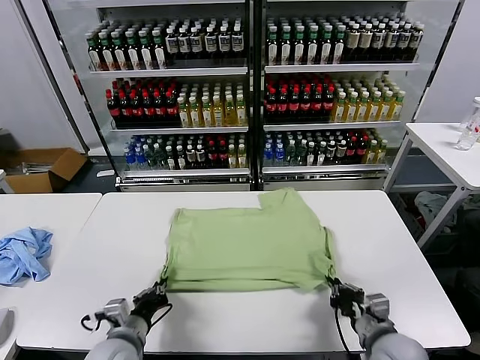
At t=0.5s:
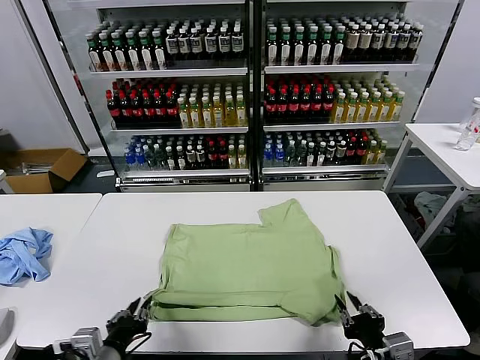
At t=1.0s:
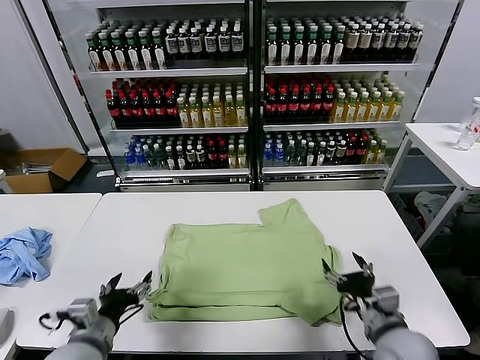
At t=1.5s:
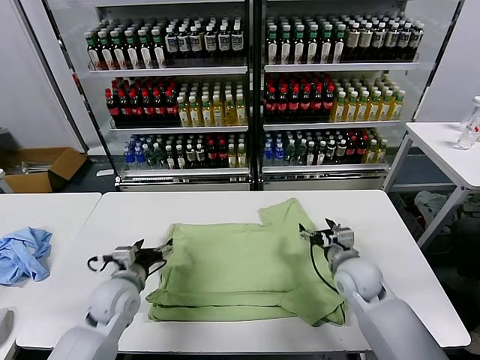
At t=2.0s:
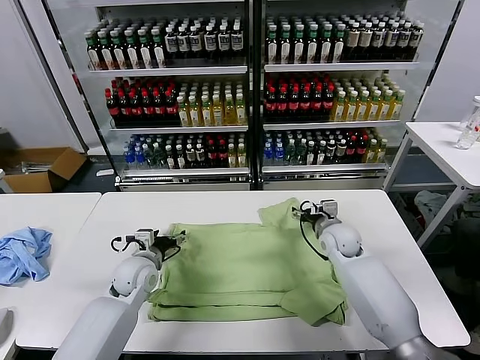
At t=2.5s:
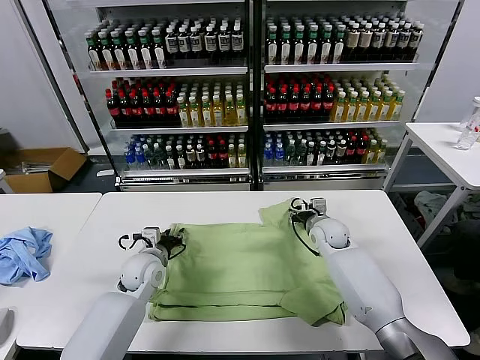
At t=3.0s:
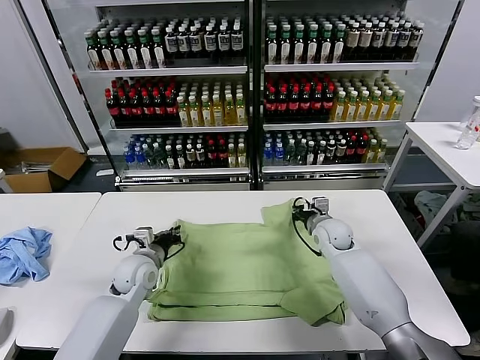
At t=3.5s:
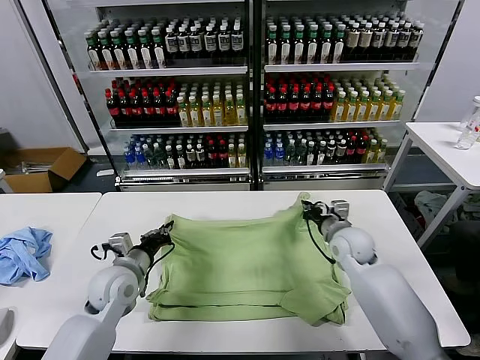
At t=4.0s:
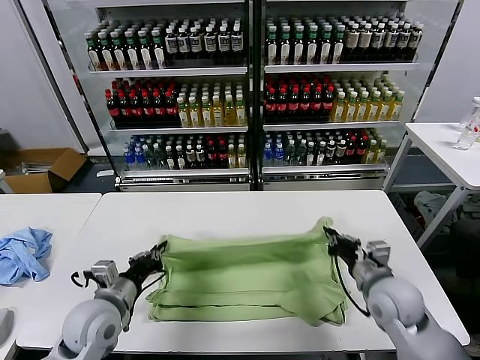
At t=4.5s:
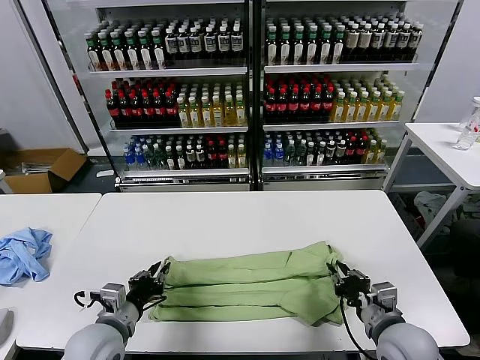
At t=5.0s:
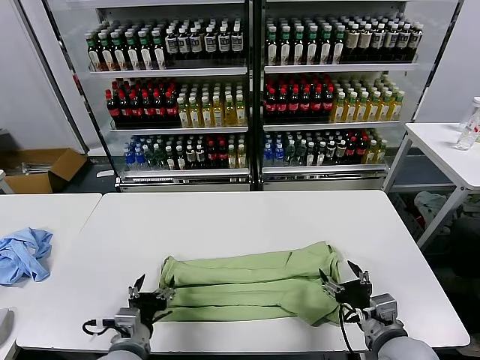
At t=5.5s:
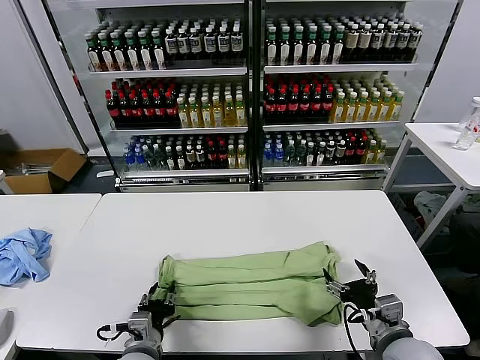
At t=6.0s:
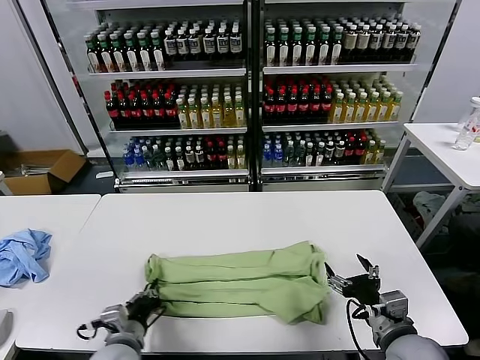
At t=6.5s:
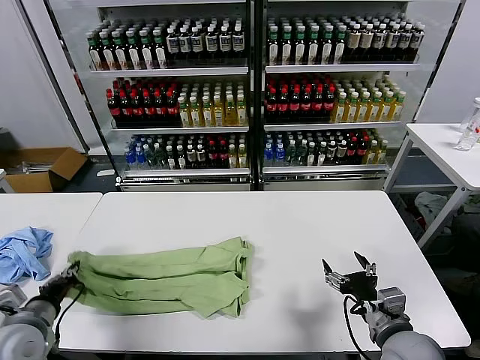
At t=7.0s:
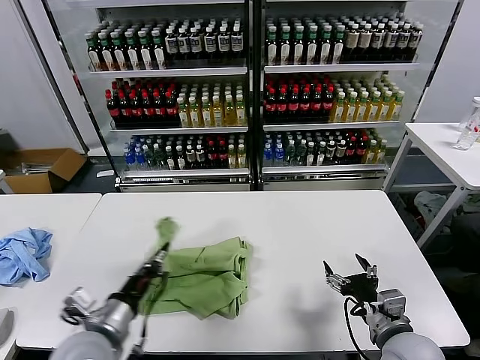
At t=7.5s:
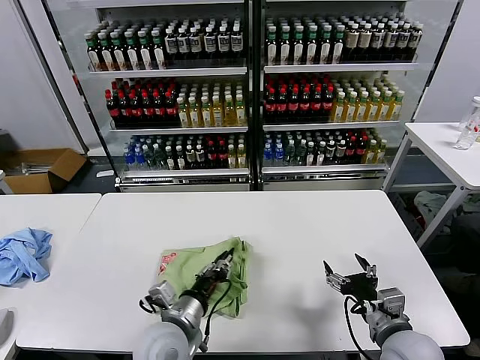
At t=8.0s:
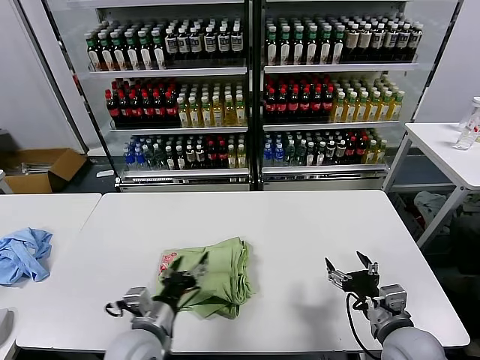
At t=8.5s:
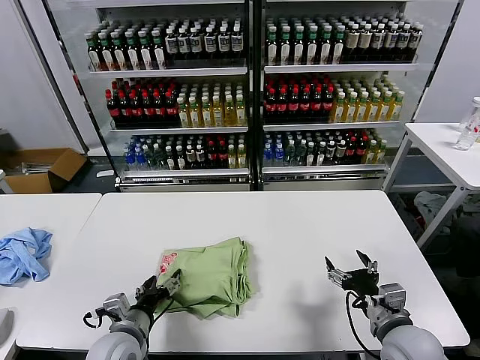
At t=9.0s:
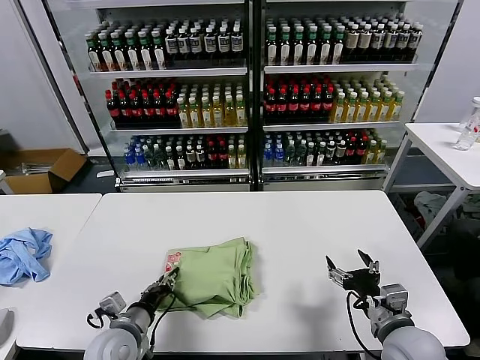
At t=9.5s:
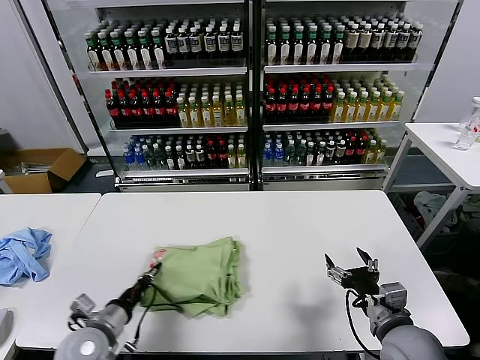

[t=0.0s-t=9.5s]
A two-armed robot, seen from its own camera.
Task of the whole recording: fold and organize the clothes.
Step, t=1.0s to t=2.5s: use both grippers simultaneously to clamp the upper edge of the clothing fabric.
Step, t=3.5s to t=4.5s: use both grippers to drag the upper edge of the fabric backward and fold it over the lower edge.
Step, t=5.0s to t=5.5s: use the left gripper to clamp the left edge of the fabric.
Step, t=6.0s to t=7.5s: use the left gripper to drag the left edge of the fabric to the left and folds it over the right edge.
t=0.0s to t=2.0s: The right gripper goes roughly 30 cm forward, and opens its fingers, while the left gripper travels forward by approximately 20 cm, and opens.
t=2.0s to t=4.0s: The left gripper travels backward by approximately 15 cm, and closes its fingers; the right gripper heads backward, covering about 20 cm, and closes.
t=4.0s to t=5.5s: The right gripper shifts about 10 cm backward, and opens its fingers. The left gripper travels to the right, backward and downward by about 15 cm, and opens up.
t=5.5s to t=7.5s: The left gripper shifts some 5 cm upward, and reaches approximately 20 cm to the left, then returns.
t=7.5s to t=9.5s: The left gripper goes about 15 cm to the left, and opens and closes again.

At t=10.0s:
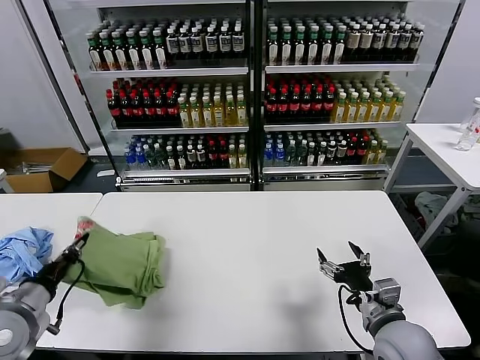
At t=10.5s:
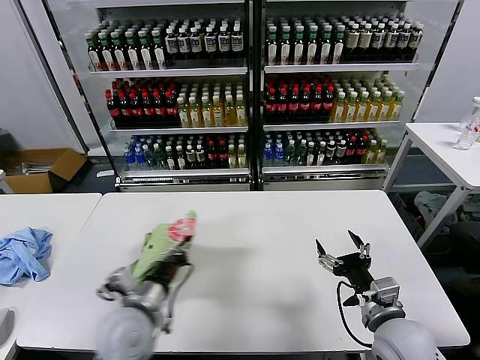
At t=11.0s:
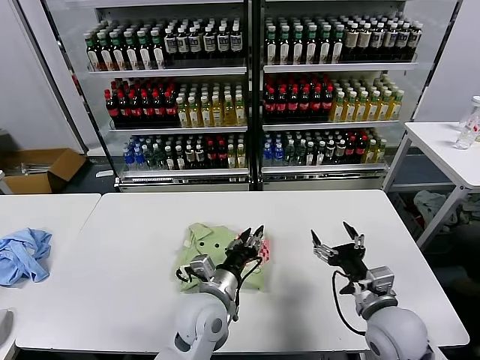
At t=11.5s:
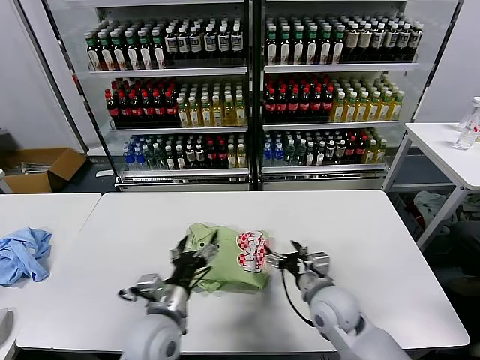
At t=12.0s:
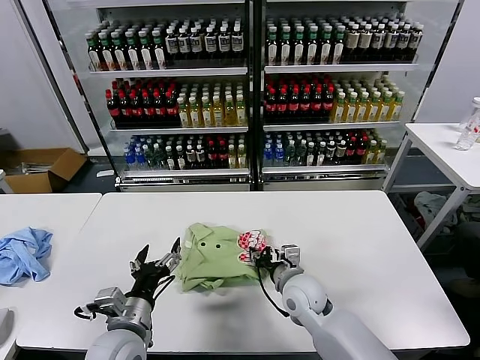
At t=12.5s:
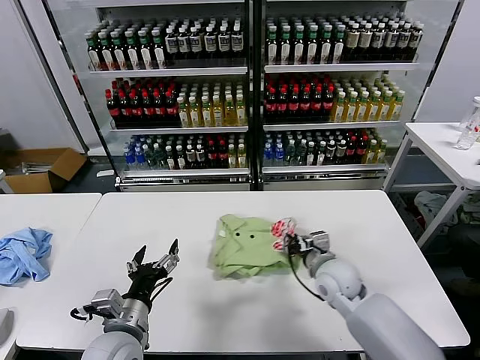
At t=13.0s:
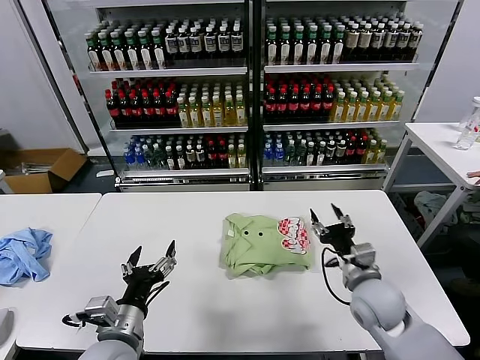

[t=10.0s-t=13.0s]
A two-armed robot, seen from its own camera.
Task of the whole recording: fold and organize the clothes.
Step, t=11.5s to t=12.5s: Drag the clothes to the center of the table.
t=10.0s to t=11.5s: The right gripper shifts some 10 cm to the left and forward. Meanwhile the left gripper travels to the right by roughly 25 cm, and opens its fingers.
t=11.5s to t=13.0s: The right gripper travels to the right by some 5 cm, and closes its fingers, while the left gripper goes roughly 10 cm to the left and backward.
